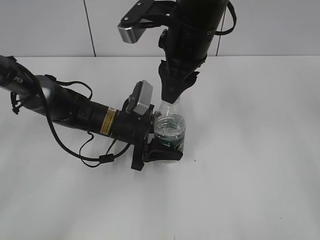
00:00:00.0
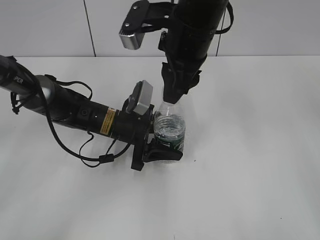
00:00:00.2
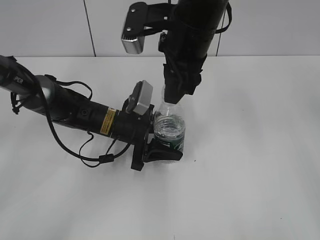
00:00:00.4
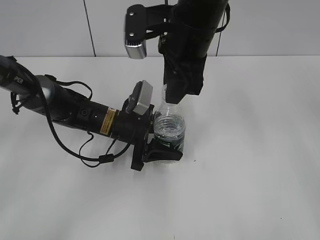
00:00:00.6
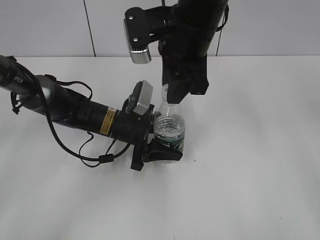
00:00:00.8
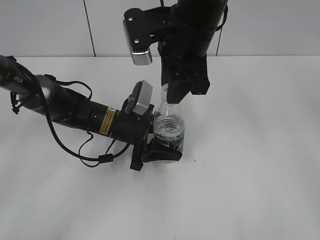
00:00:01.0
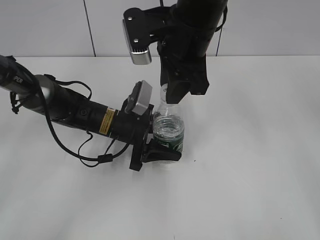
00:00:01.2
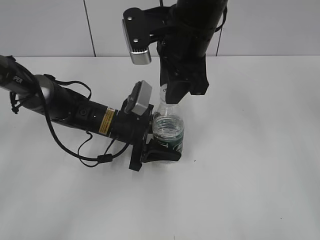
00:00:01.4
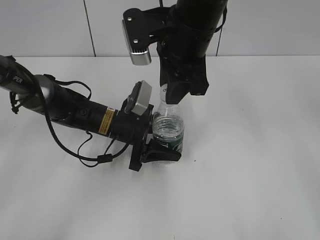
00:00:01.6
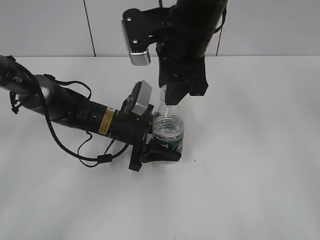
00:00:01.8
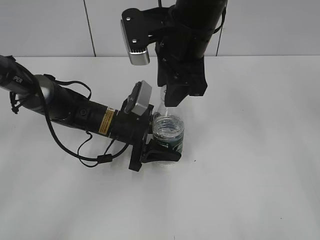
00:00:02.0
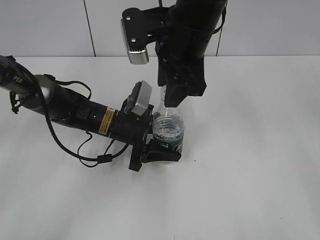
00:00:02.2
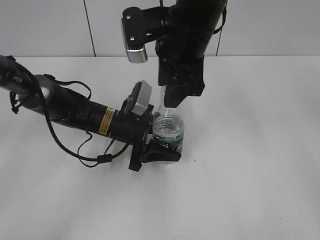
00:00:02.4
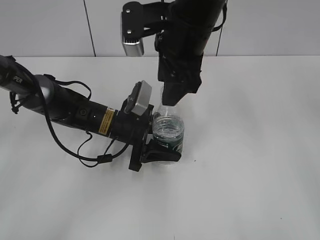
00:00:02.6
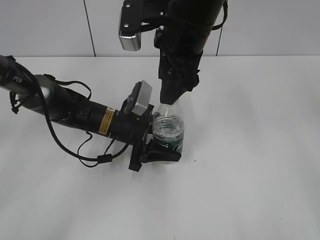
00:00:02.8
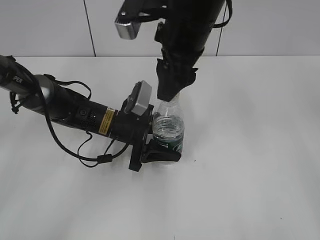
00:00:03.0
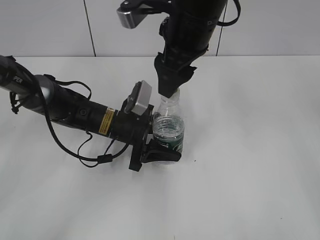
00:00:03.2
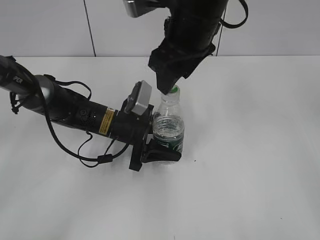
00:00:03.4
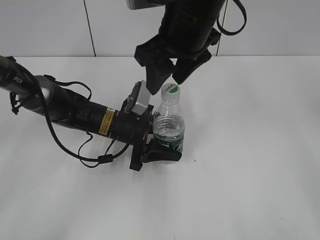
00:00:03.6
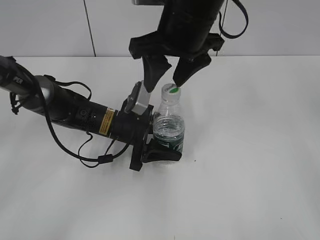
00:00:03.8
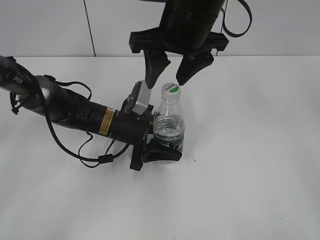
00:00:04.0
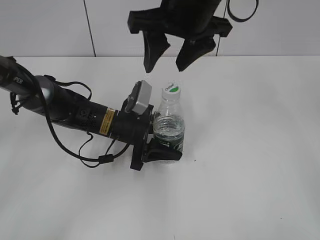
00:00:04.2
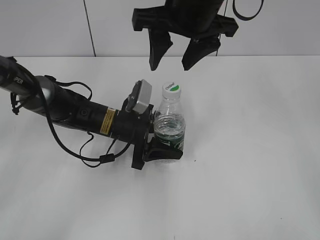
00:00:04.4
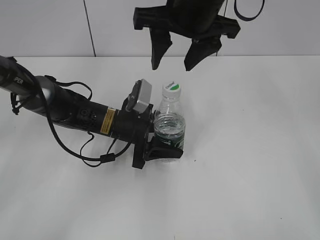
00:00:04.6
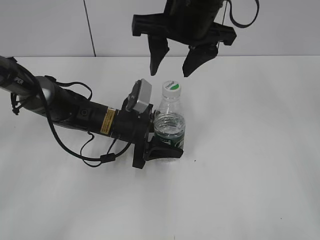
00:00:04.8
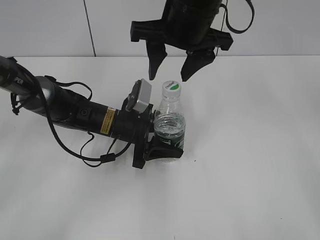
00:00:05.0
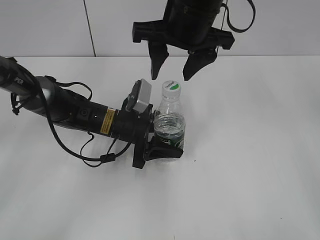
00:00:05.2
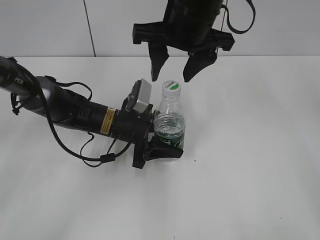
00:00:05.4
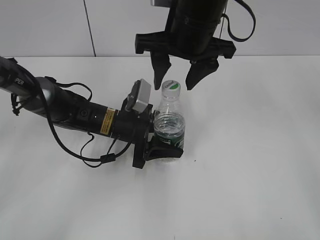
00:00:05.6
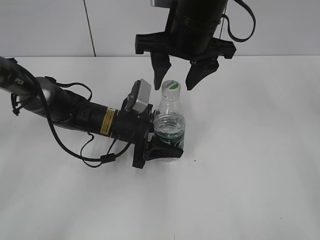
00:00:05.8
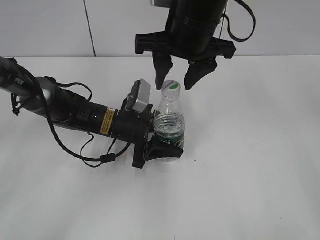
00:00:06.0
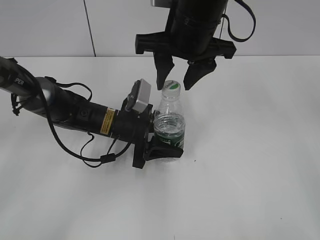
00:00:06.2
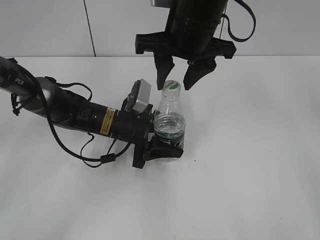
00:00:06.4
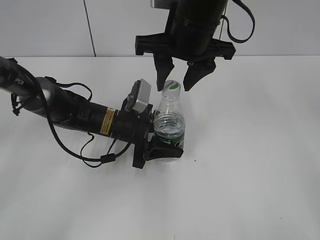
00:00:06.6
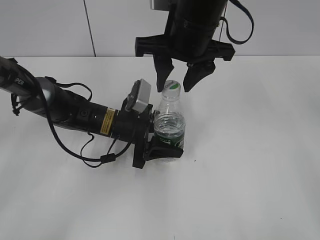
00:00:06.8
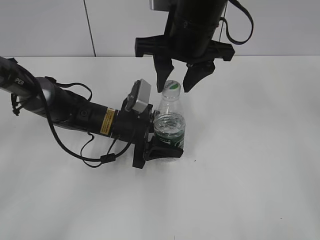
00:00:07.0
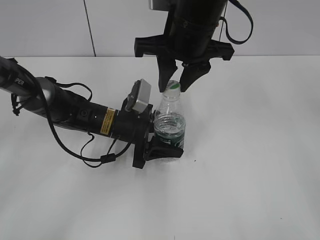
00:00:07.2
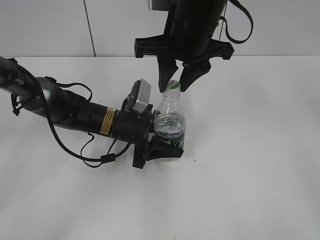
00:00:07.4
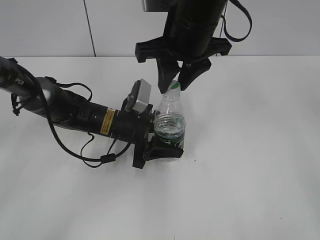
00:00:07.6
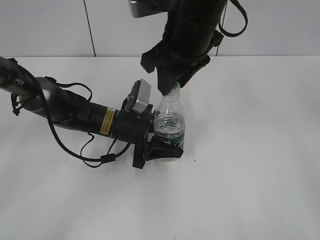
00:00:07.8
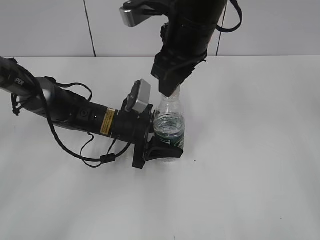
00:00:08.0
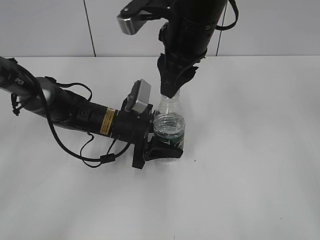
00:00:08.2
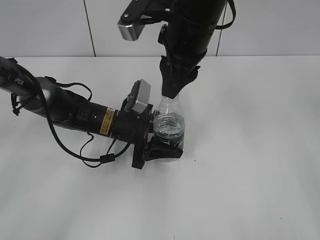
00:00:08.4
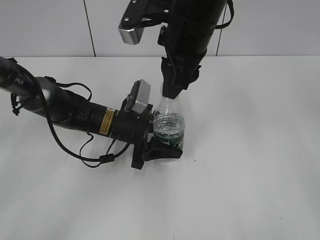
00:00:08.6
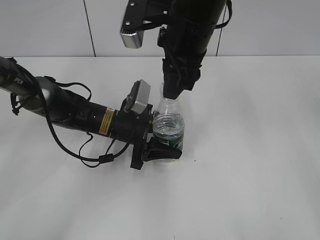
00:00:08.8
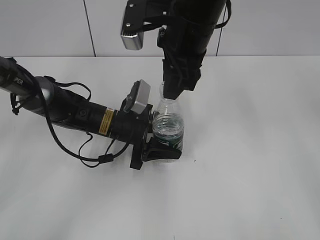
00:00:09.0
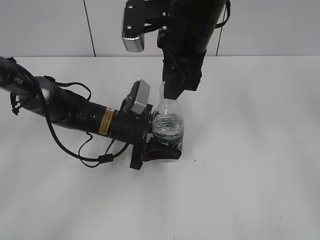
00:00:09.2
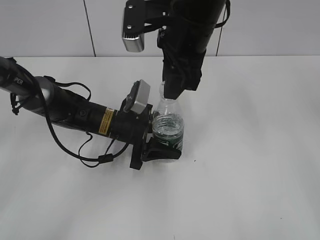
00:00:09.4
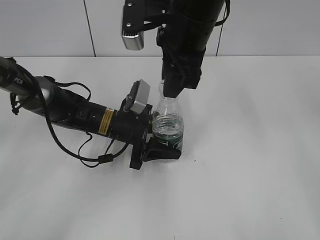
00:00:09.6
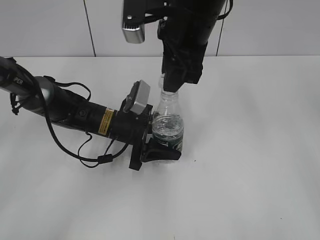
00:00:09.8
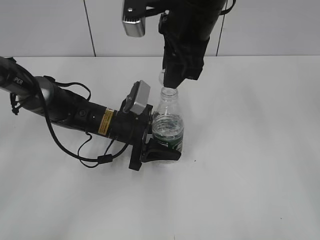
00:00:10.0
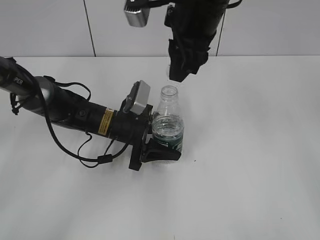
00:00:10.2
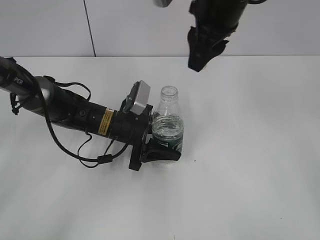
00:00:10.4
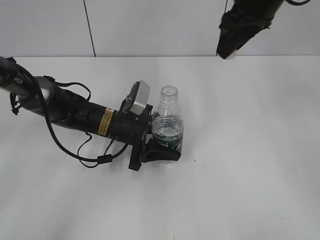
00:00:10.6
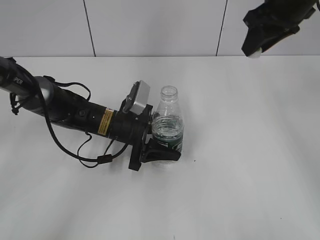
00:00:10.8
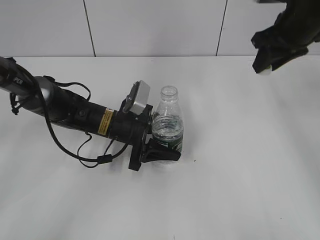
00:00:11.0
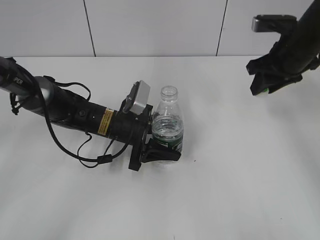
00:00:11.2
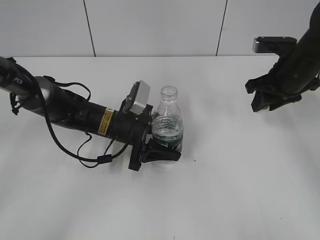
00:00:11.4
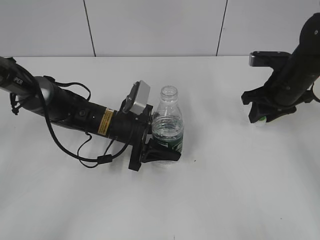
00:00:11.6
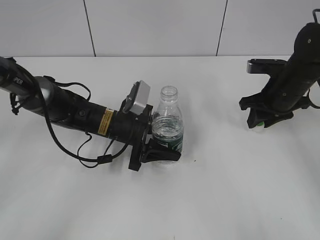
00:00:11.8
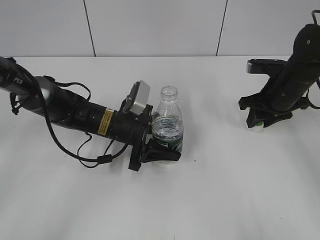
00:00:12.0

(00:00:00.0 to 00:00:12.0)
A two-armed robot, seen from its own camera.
Step, 00:00:00.0 - 00:00:10.0: Unscrew the bottle cap with the right gripper while holding the bottle with the left gripper.
00:00:01.6 - 00:00:03.0: The right gripper opens.
00:00:04.4 - 00:00:06.0: The grippers stay close to where they were, moving slightly.
00:00:06.0 - 00:00:07.6: The right gripper closes.
00:00:09.0 - 00:00:10.4: The right gripper moves roughly 5 cm.
00:00:10.4 - 00:00:12.0: The right gripper moves downward and to the right, approximately 25 cm.

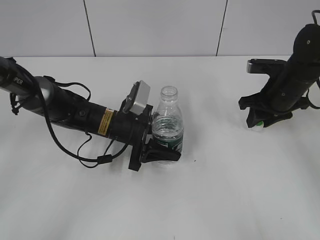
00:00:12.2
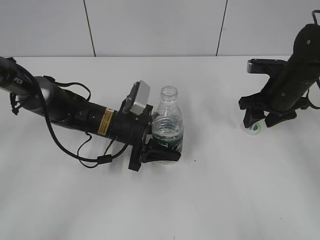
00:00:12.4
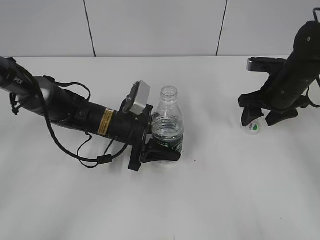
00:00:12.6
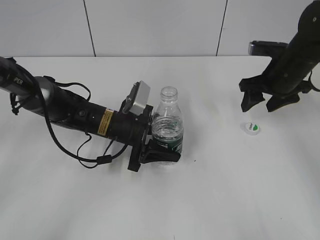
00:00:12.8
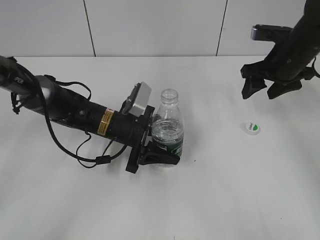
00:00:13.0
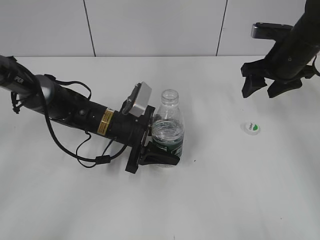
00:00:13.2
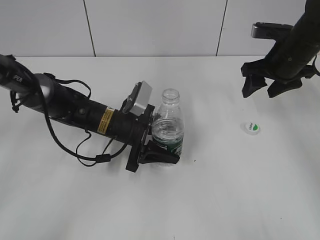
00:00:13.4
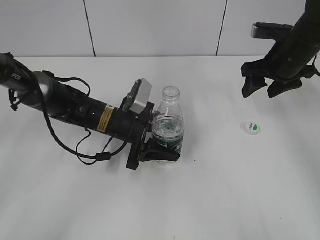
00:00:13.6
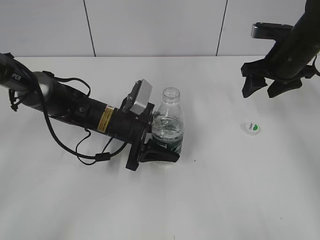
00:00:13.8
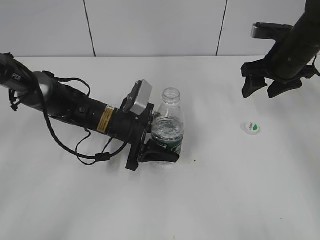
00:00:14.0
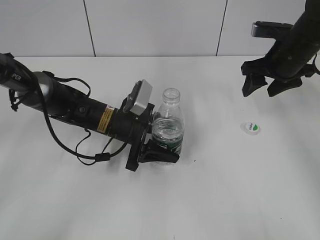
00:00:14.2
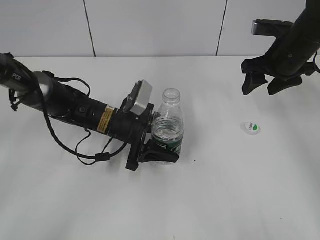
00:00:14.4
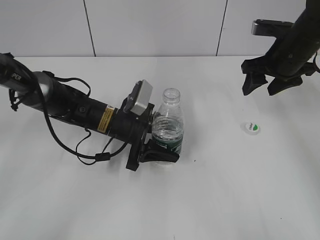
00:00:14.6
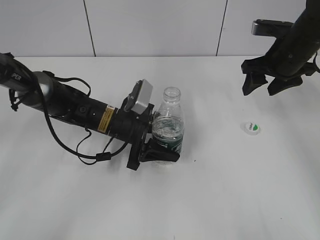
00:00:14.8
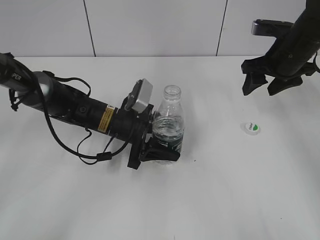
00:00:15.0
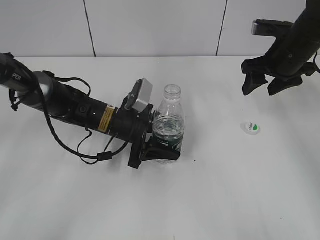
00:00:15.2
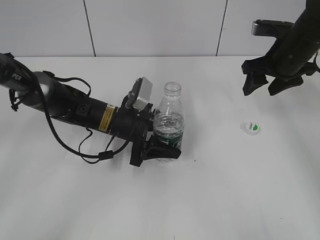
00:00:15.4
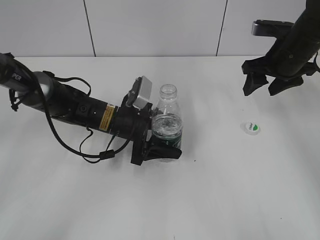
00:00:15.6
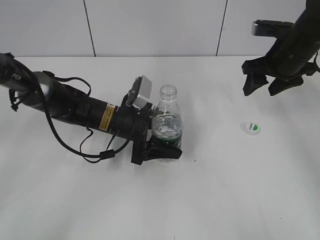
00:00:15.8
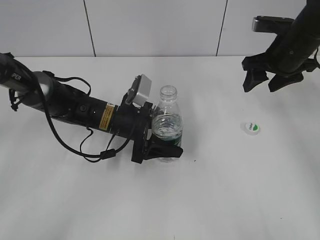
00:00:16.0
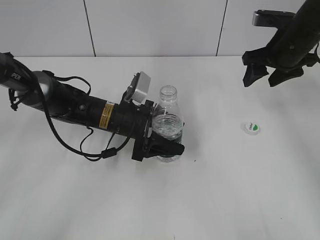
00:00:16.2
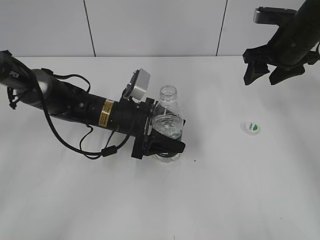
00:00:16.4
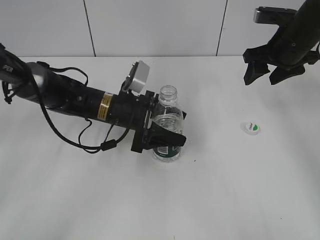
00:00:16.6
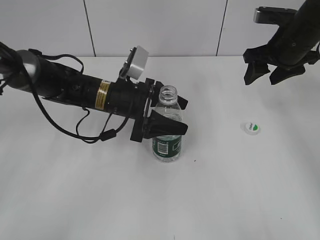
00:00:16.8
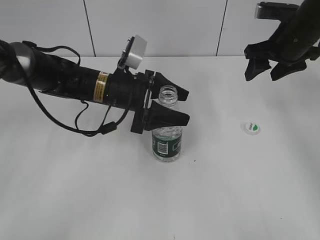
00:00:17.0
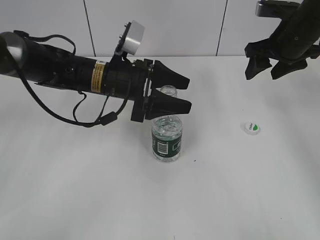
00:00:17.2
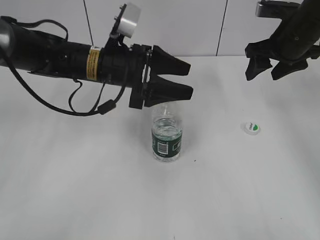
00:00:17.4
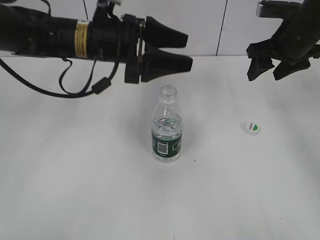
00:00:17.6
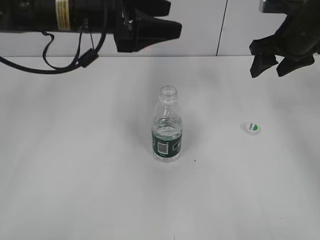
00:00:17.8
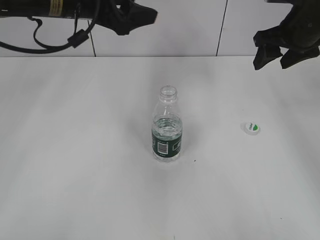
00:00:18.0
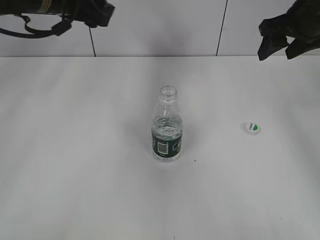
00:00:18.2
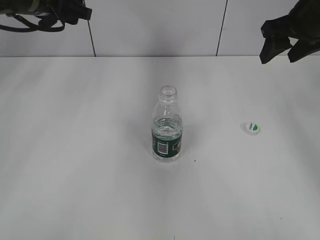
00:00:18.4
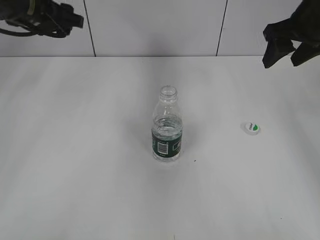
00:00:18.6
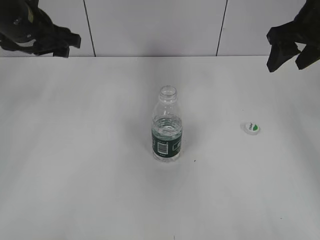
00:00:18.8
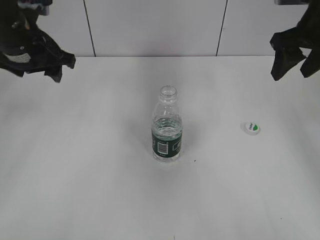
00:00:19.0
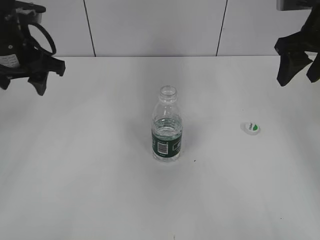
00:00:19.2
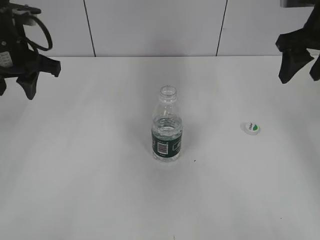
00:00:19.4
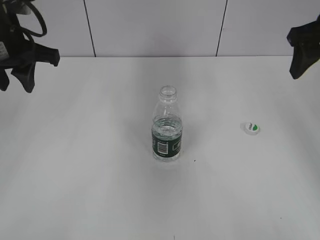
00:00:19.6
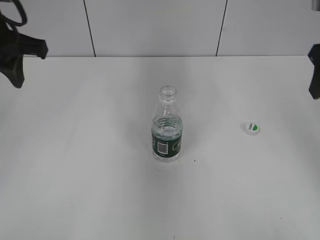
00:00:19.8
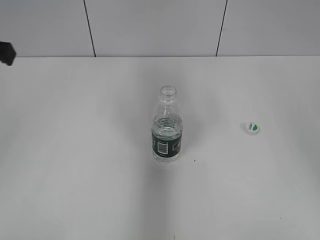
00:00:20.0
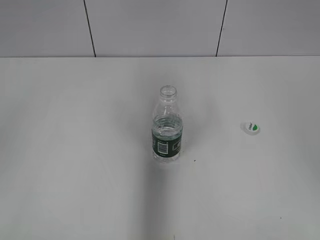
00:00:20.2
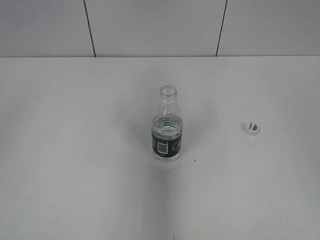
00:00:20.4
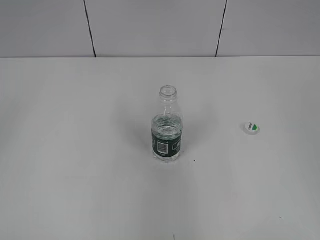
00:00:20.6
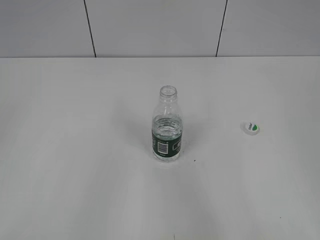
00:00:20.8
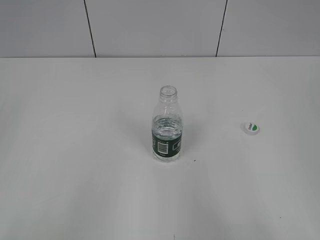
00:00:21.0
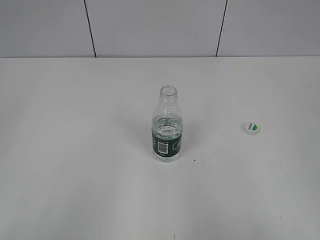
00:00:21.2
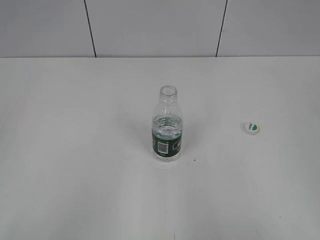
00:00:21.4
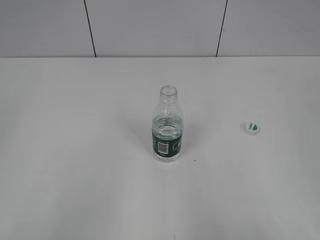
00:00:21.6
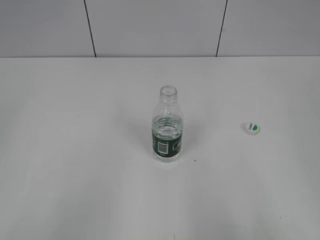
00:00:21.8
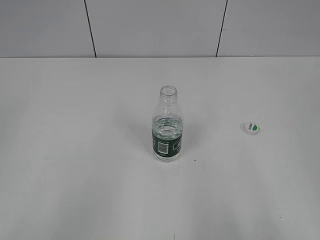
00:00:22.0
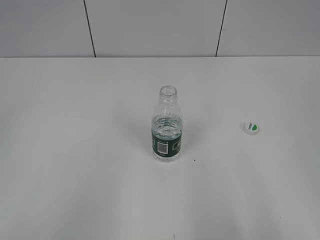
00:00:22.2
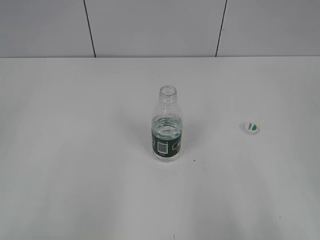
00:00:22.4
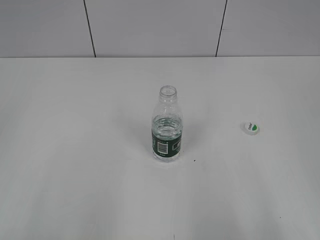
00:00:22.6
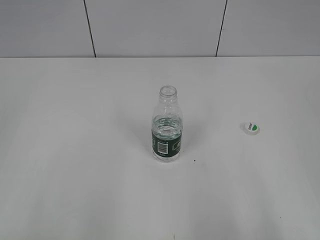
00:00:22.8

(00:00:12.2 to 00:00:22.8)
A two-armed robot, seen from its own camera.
Step, 00:00:12.8 - 00:00:17.2: Place the bottle on the table with the left gripper.
00:00:12.2 - 00:00:13.8: The right gripper heads upward, covering some 5 cm, and opens.
00:00:13.8 - 00:00:15.2: Both grippers stay put.
00:00:15.2 - 00:00:16.8: The left gripper heads upward, covering some 5 cm.
00:00:16.8 - 00:00:18.2: The left gripper shifts about 20 cm upward and to the left. Meanwhile the right gripper is displaced upward by roughly 5 cm.
00:00:18.2 - 00:00:19.8: The left gripper heads backward and to the left, covering some 10 cm, and closes its fingers. The right gripper shifts about 10 cm backward.
00:00:19.8 - 00:00:21.2: The grippers both shift backward by some 30 cm.
